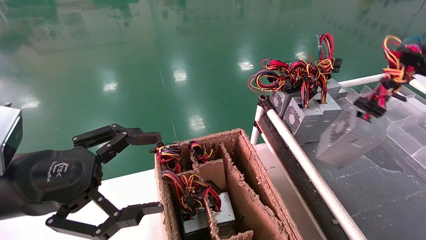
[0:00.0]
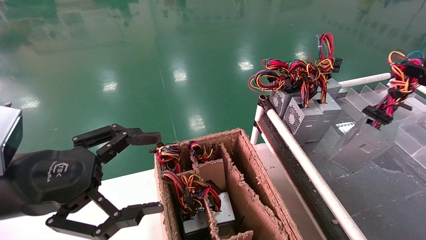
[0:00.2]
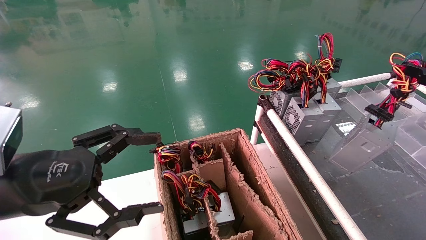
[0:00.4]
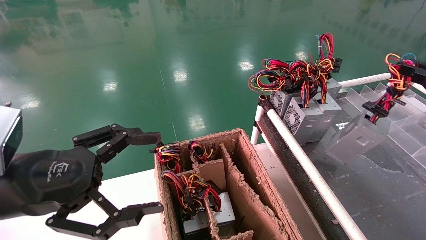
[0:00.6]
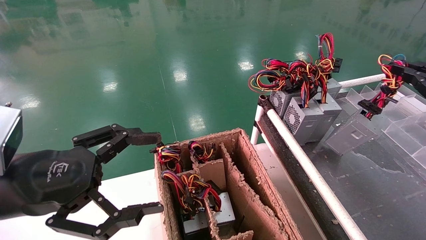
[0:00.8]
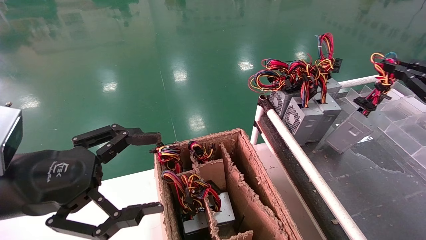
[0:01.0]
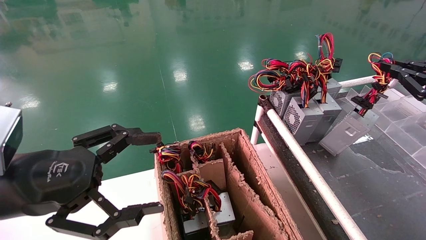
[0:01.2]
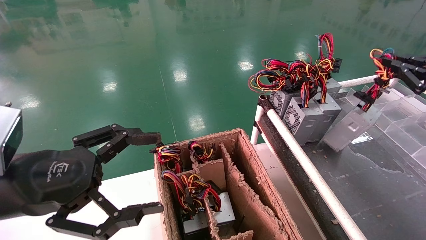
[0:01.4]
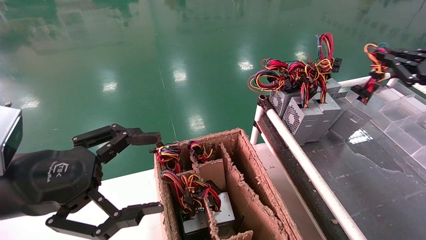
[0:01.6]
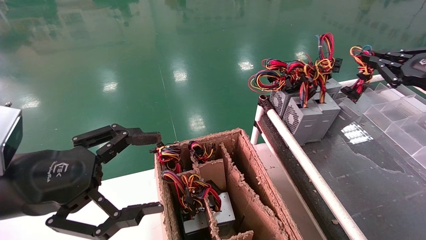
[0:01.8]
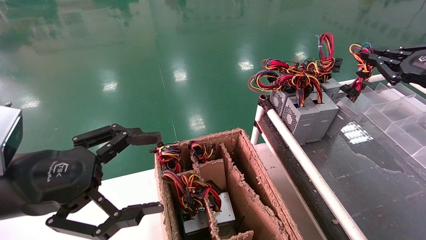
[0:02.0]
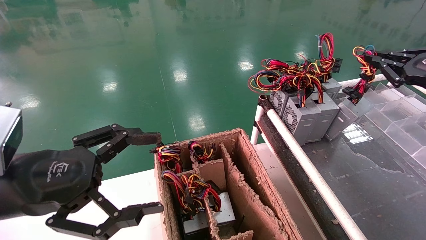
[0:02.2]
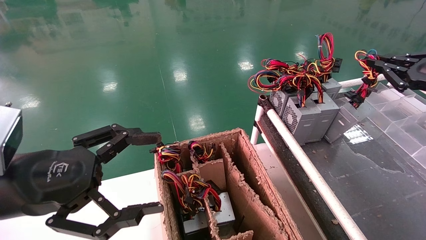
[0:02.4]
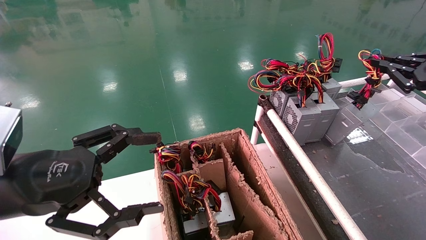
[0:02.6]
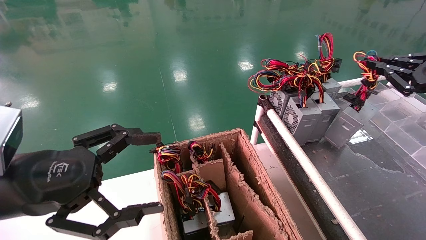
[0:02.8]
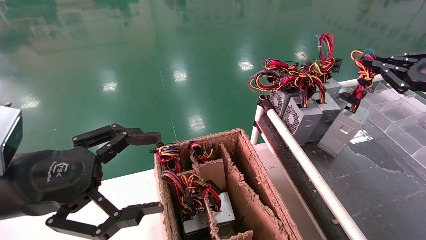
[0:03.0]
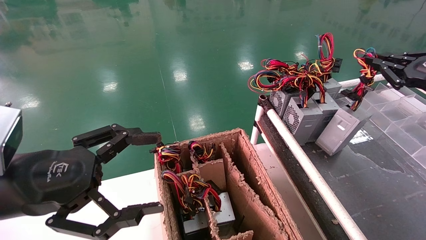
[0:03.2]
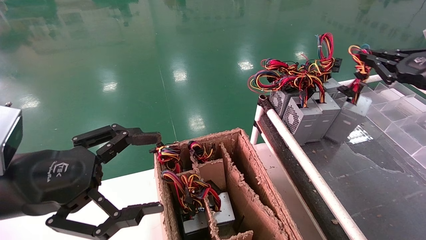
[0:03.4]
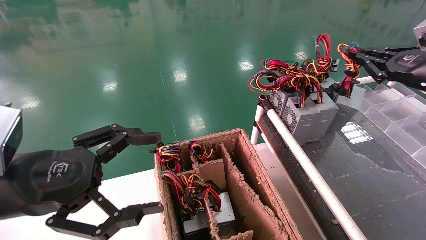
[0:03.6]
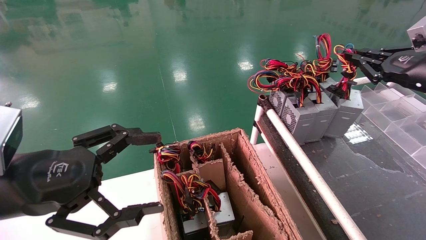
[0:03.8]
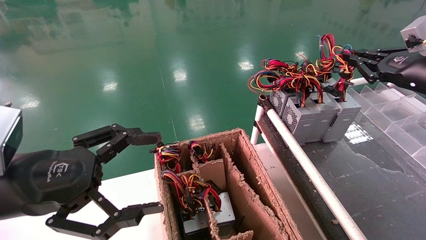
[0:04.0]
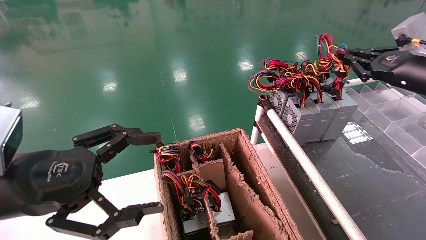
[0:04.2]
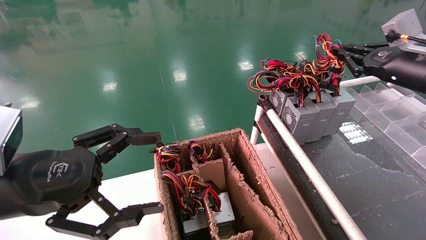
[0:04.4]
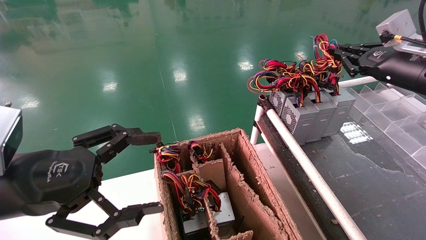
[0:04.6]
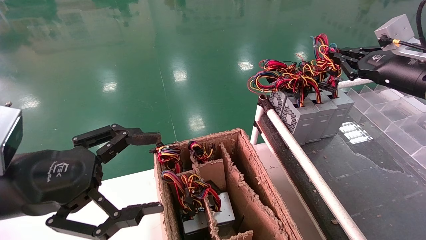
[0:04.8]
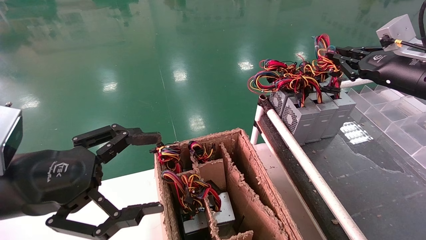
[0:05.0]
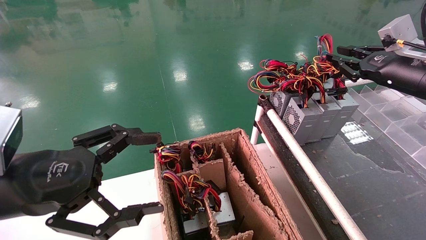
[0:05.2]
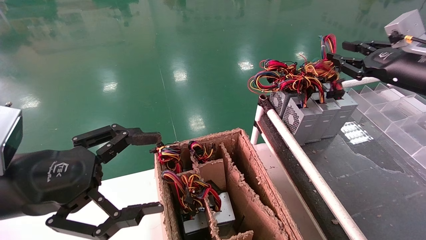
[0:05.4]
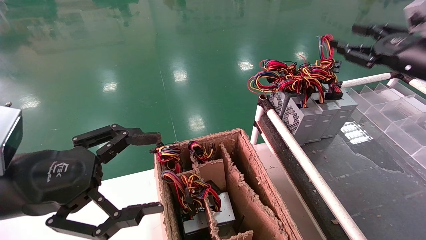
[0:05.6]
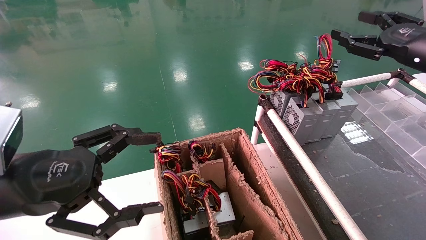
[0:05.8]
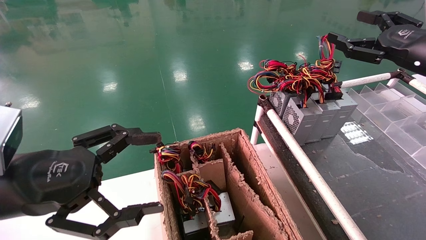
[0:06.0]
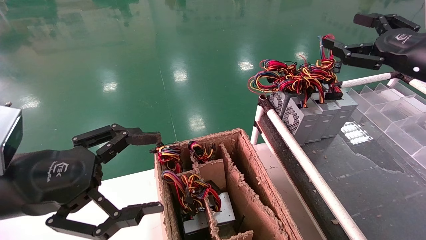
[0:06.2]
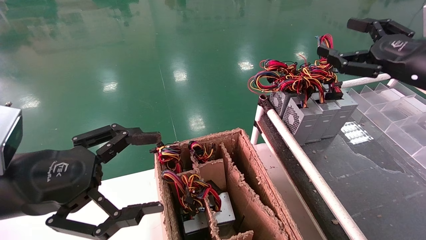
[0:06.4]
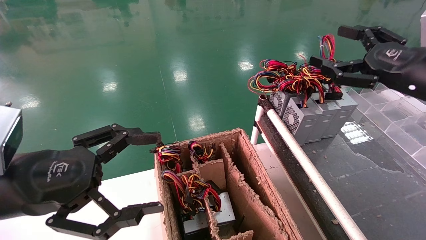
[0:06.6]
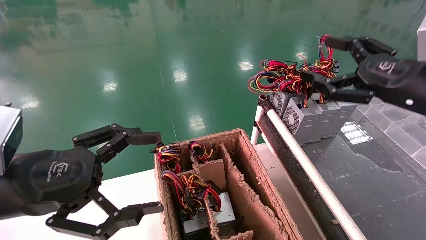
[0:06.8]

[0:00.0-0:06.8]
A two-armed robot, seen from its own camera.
Step, 0:00.0 to 0:05.0: Place the power supply on the operating table.
0:00.0 to 0:01.4: The right gripper heads forward, covering some 10 cm.
0:01.4 to 0:02.8: There are only small adjustments of the grippers.
0:02.8 to 0:04.0: The right gripper ends up approximately 5 cm from where it was.
0:04.0 to 0:05.4: The grippers move only a little.
0:05.4 to 0:06.8: The right gripper shifts roughly 10 cm backward, and opens its fingers.
